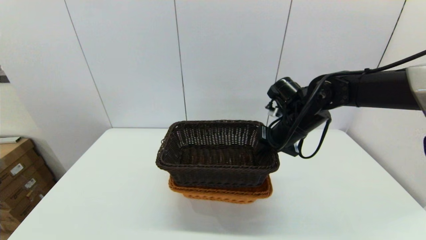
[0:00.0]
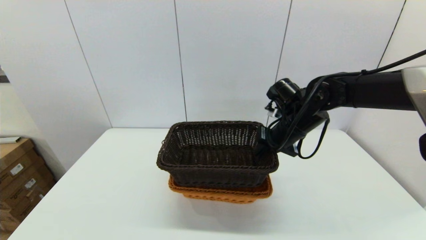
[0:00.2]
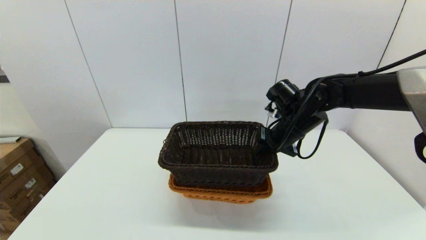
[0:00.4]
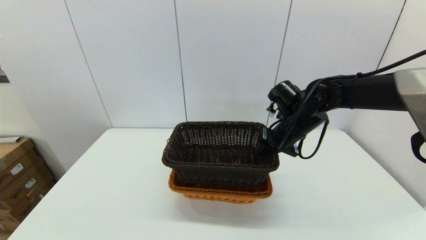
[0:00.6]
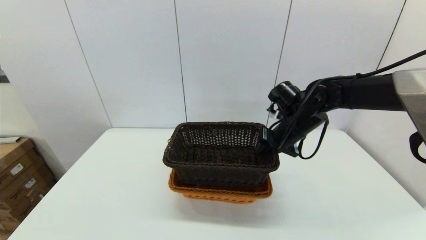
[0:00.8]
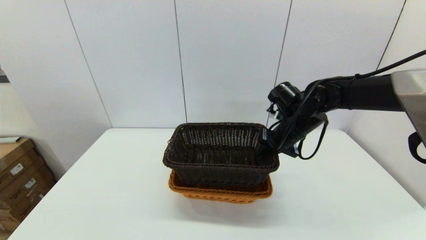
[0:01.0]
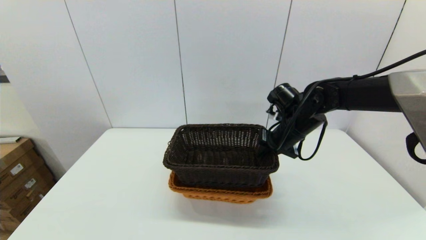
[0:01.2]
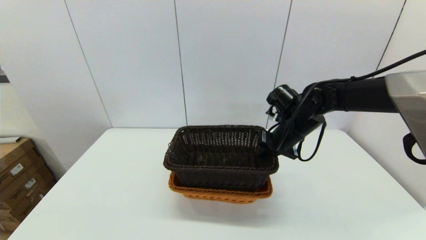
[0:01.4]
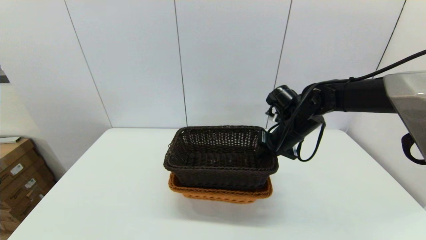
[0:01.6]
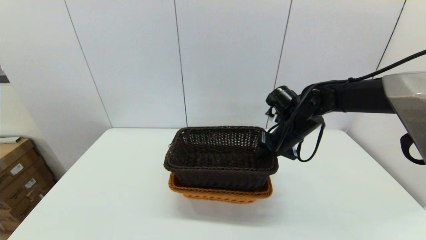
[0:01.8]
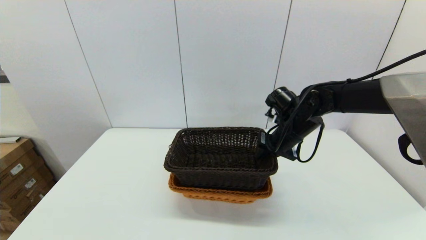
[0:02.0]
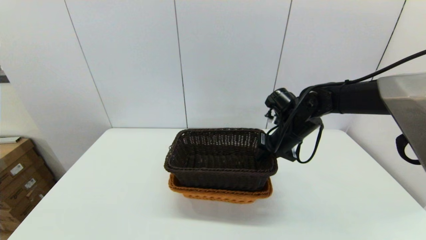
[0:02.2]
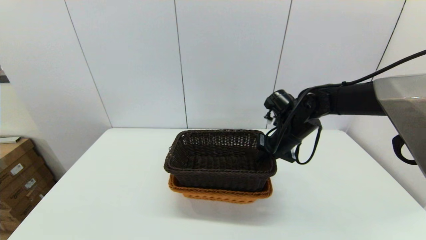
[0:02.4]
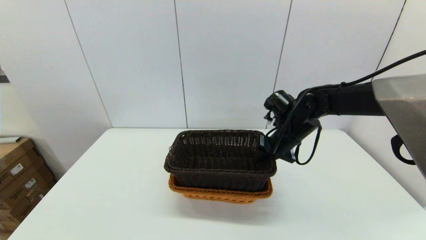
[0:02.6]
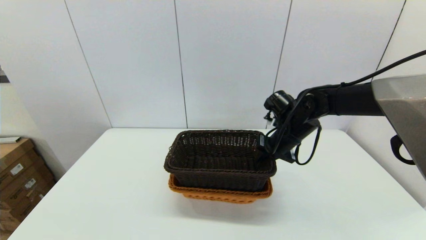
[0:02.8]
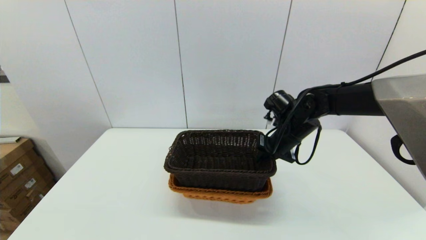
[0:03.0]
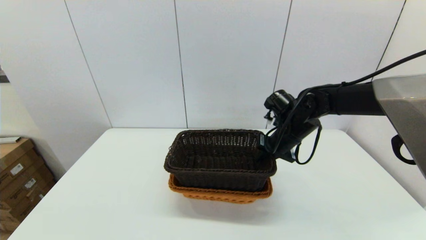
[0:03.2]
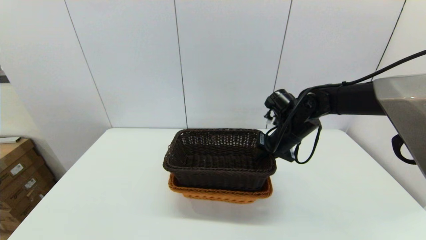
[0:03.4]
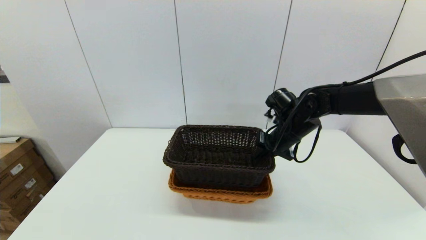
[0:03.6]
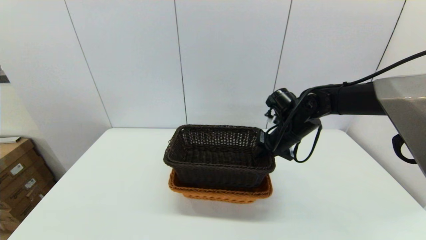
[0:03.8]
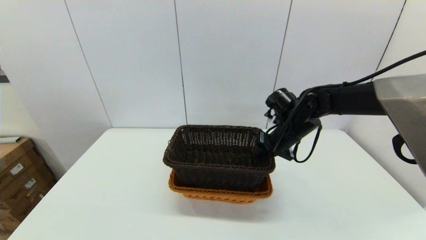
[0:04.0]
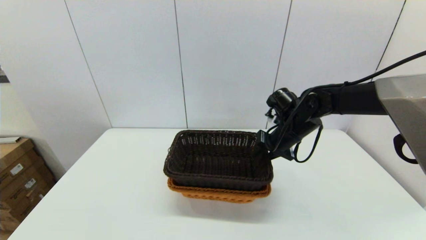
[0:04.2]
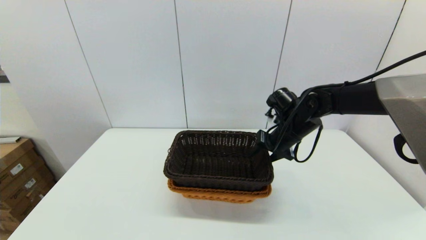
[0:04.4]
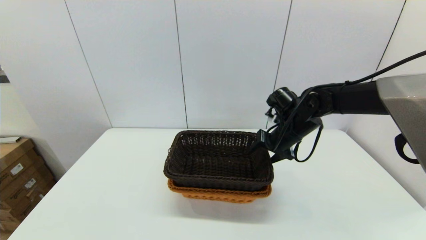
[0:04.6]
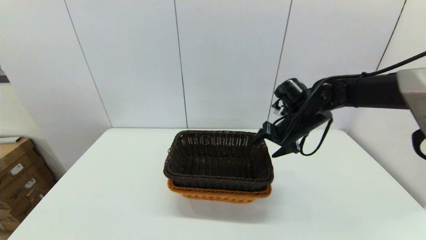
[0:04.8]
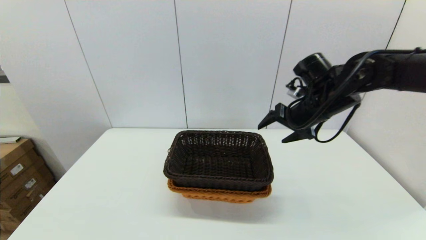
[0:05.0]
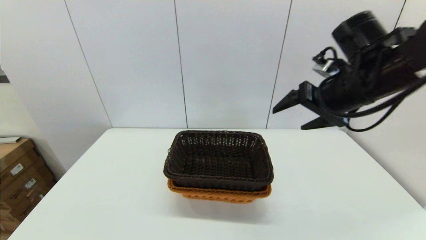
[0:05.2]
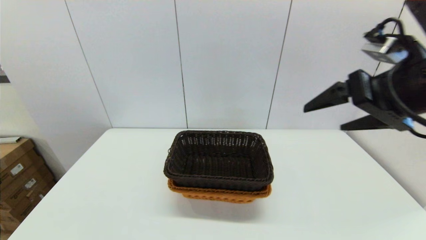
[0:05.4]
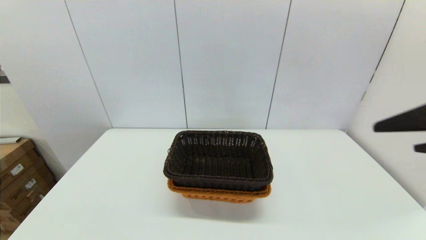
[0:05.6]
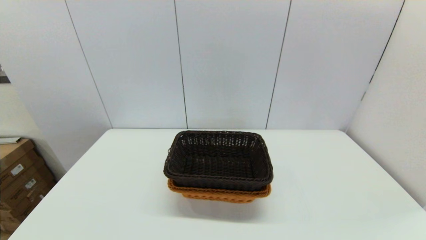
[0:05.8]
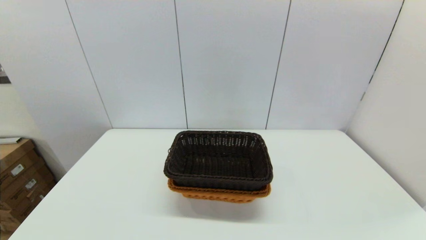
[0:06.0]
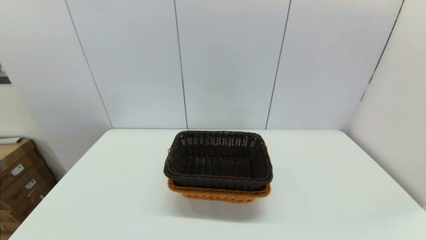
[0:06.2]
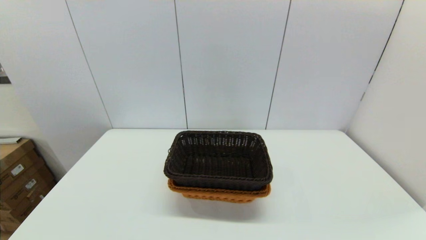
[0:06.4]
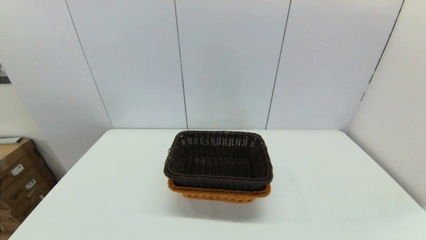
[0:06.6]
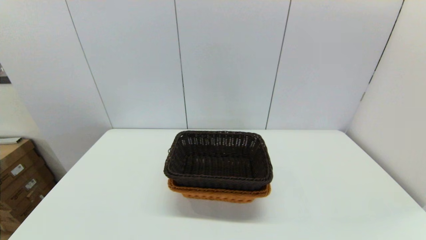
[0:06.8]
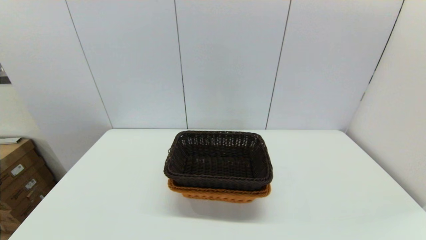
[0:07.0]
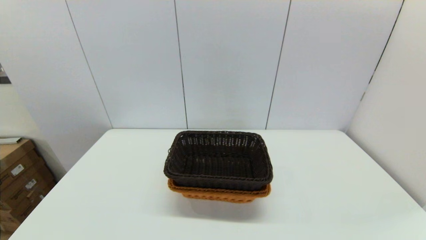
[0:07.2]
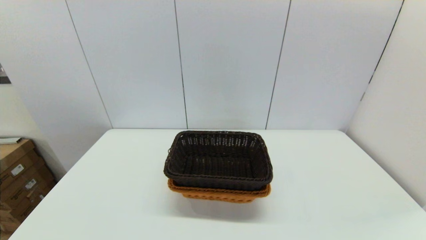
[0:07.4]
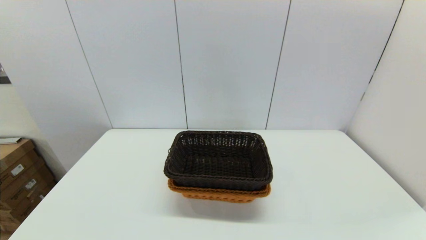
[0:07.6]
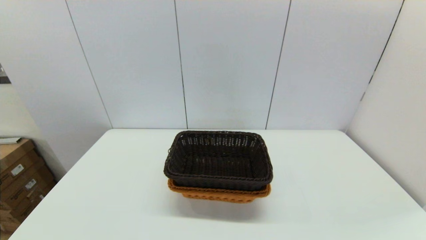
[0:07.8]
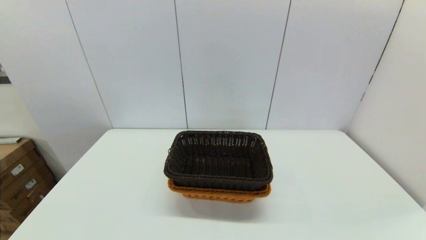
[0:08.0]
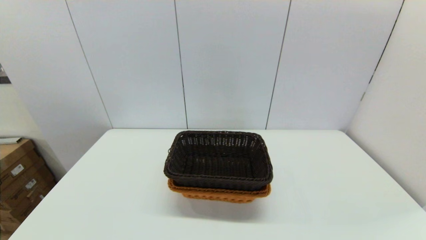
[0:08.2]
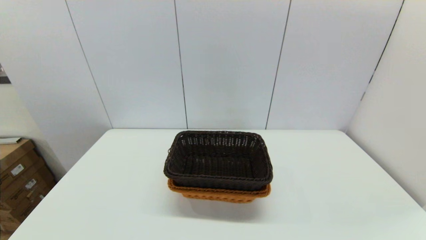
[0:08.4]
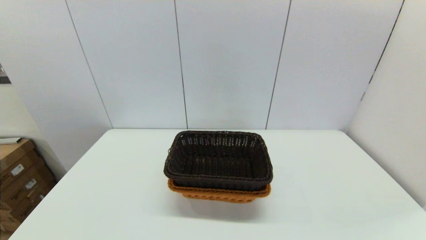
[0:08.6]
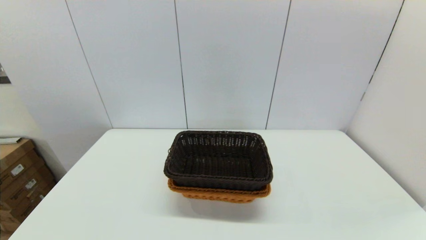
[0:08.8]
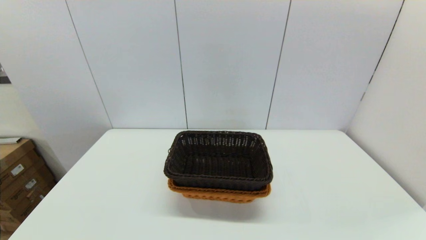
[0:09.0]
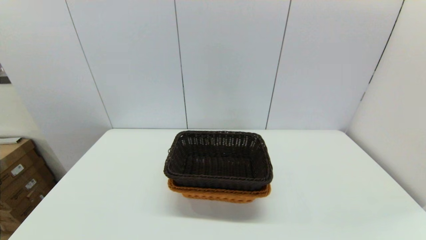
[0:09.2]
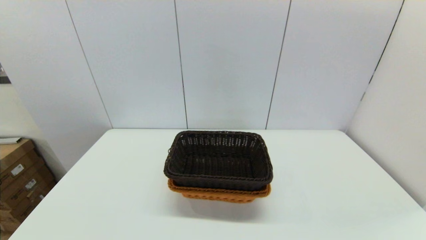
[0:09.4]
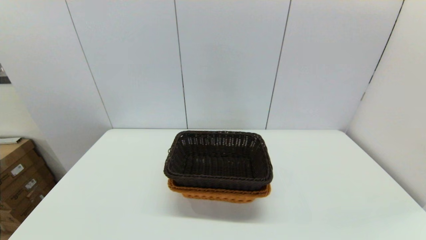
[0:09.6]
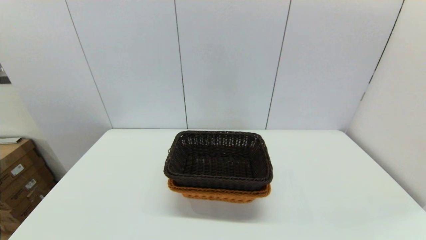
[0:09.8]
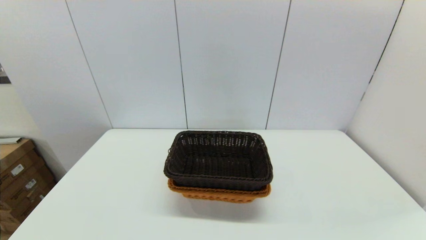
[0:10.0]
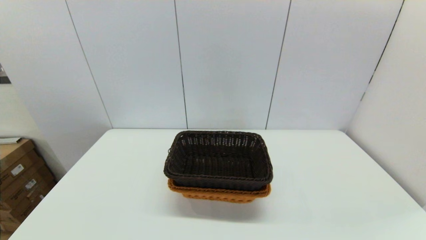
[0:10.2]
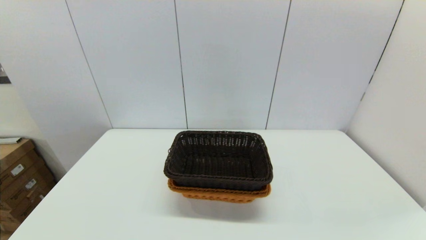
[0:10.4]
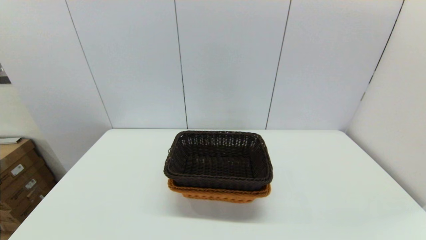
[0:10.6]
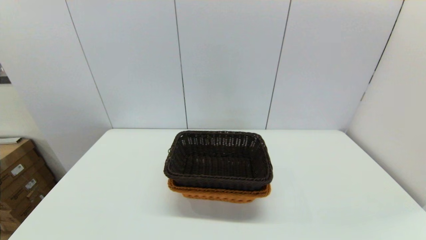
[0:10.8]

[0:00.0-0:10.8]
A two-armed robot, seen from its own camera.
Task of the whole recording: stack a basket on top of another basket.
Step, 0:00.0 to 0:05.0: Place the dark basket into the light color basket with the right gripper.
0:00.0 to 0:03.0: The grippers move only a little.
0:03.0 to 0:04.6: The right gripper opens.
0:04.6 to 0:06.2: The right gripper shifts roughly 50 cm backward.
0:09.2 to 0:10.8: The two grippers keep their place.
